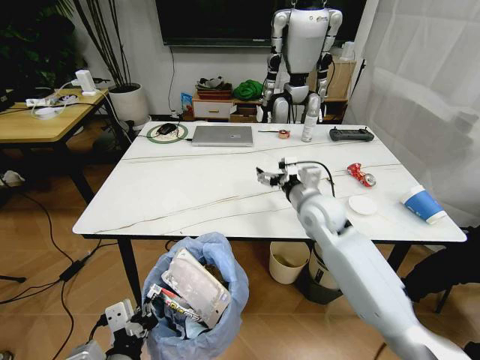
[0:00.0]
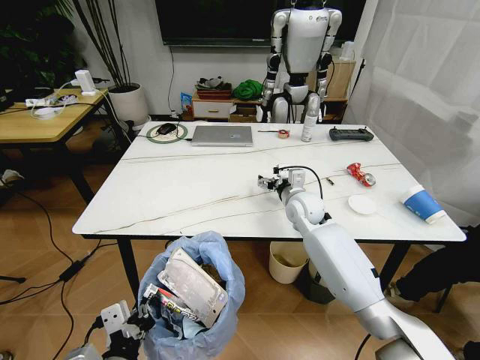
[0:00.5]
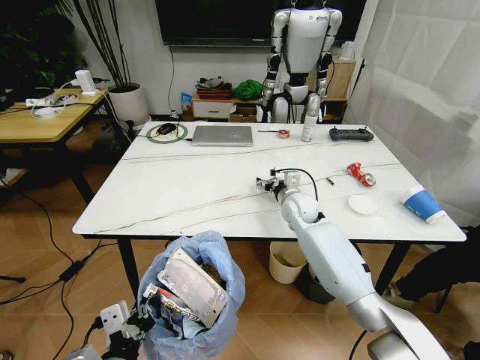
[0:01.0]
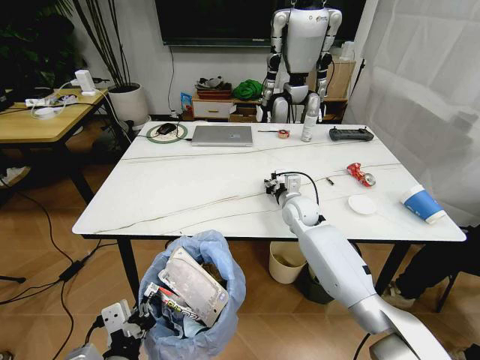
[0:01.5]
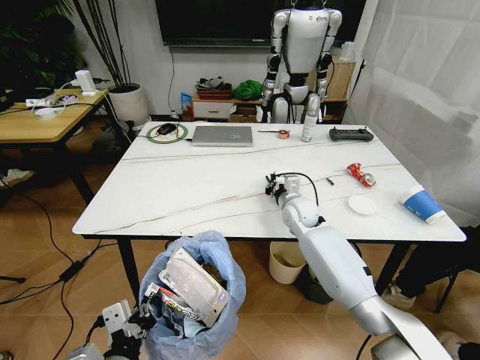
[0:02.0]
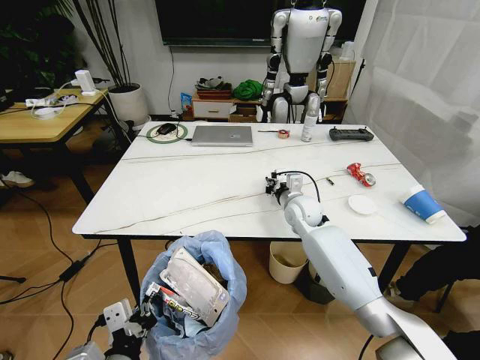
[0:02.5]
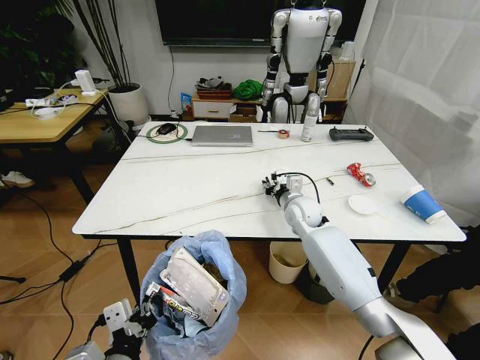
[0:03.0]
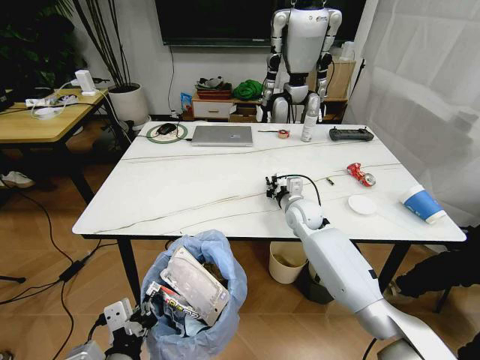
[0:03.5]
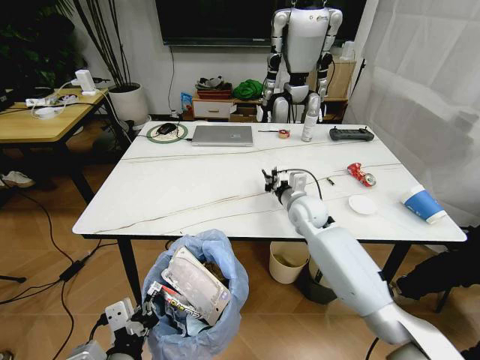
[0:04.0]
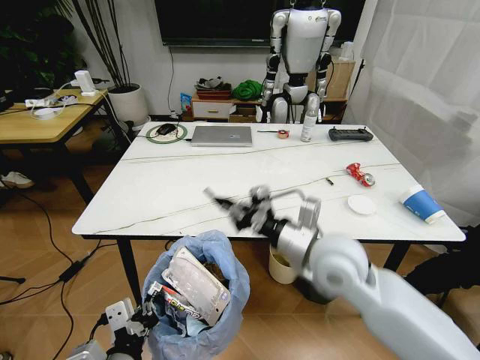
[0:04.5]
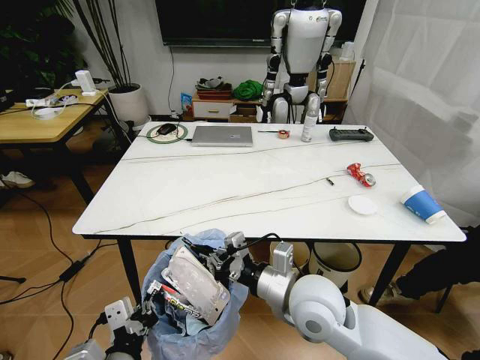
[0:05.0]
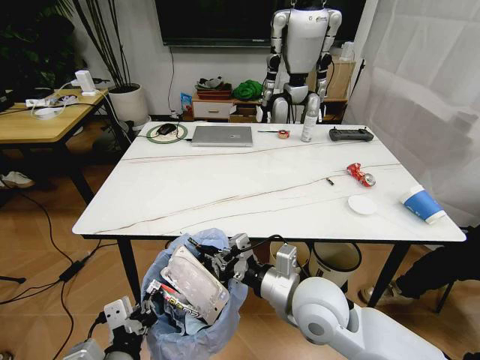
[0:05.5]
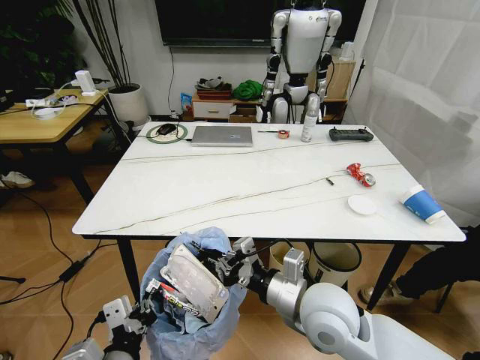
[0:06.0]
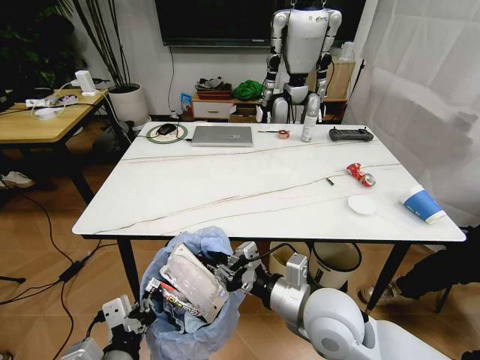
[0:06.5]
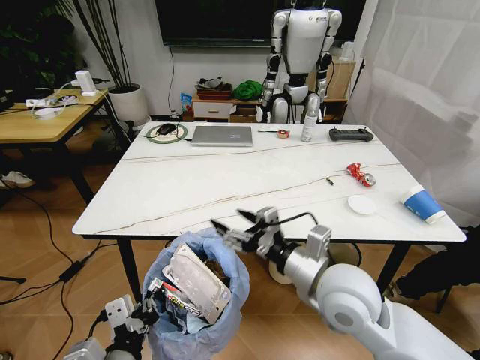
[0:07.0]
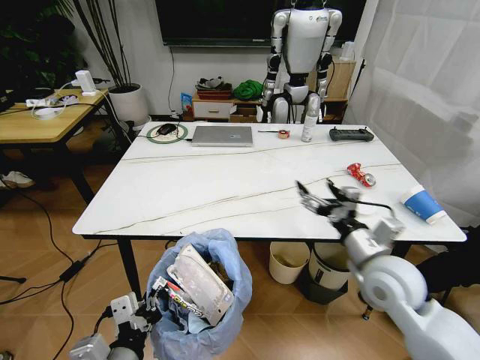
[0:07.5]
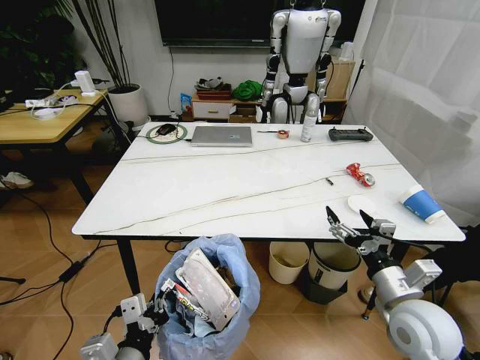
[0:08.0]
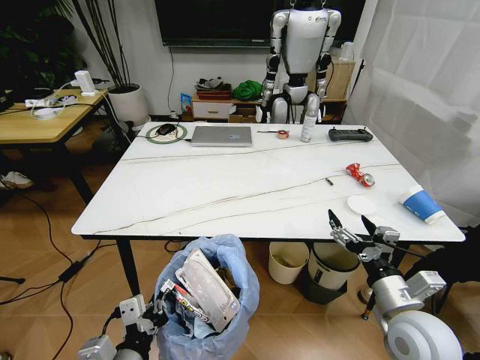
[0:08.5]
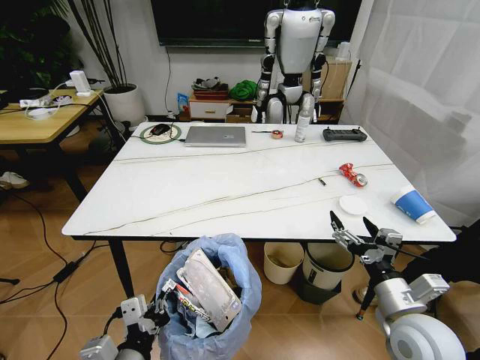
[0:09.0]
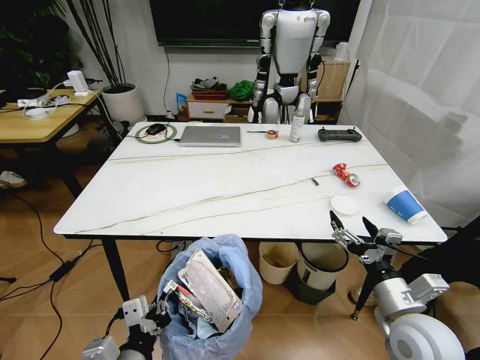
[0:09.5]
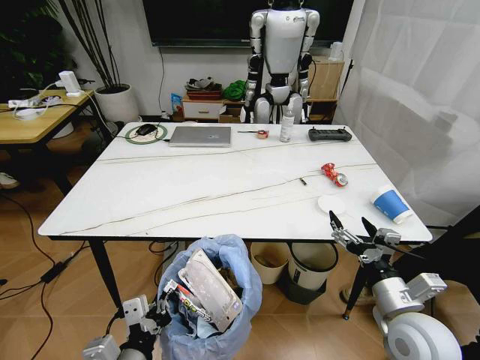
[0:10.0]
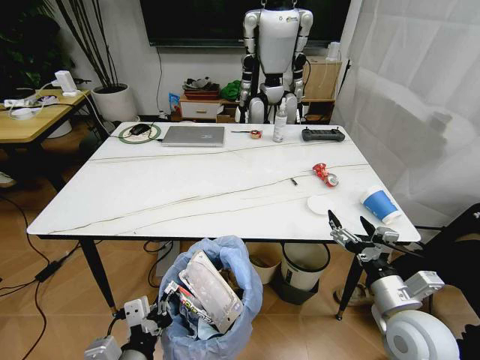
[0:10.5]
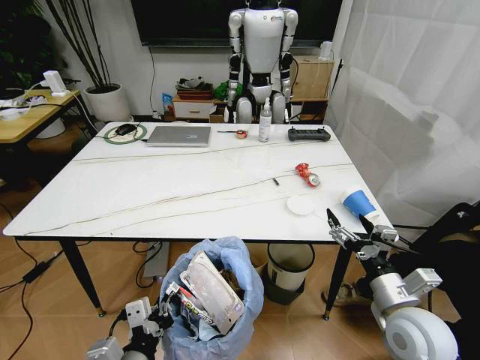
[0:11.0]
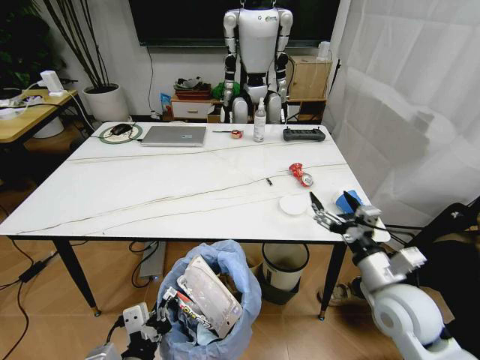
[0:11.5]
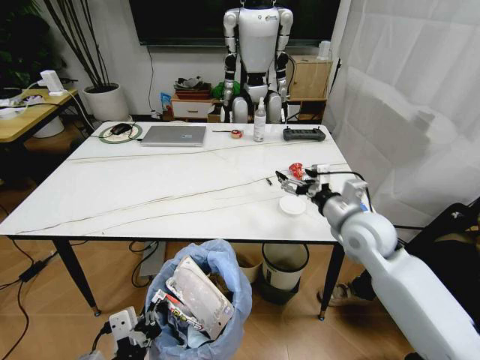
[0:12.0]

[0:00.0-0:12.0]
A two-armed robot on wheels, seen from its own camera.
Task of the whole recording: Pick up the trash bin and place the trash from the table into it.
0:00.0 to 0:02.0: The right gripper travels forward and downward by some 15 cm, and closes up.
0:02.0 to 0:04.0: The right gripper opens, then closes once more.
0:04.0 to 0:06.0: The right gripper shifts approximately 25 cm backward.
0:06.0 to 0:08.0: The right gripper goes approximately 15 cm to the right, and opens its fingers.
0:10.0 to 0:12.0: The right gripper is displaced forward by about 20 cm.

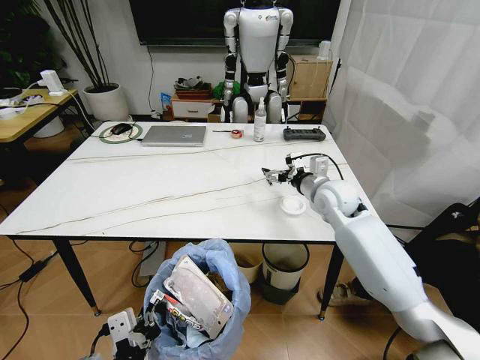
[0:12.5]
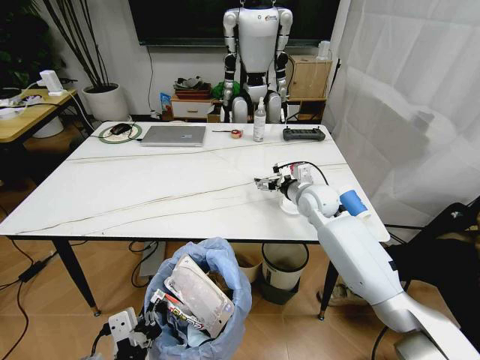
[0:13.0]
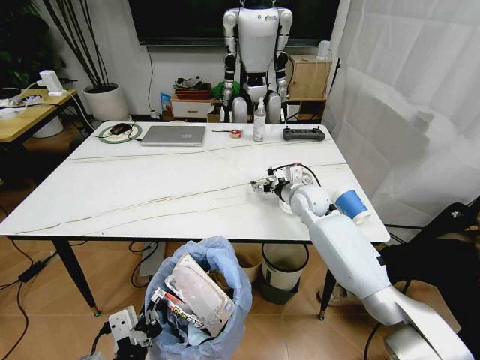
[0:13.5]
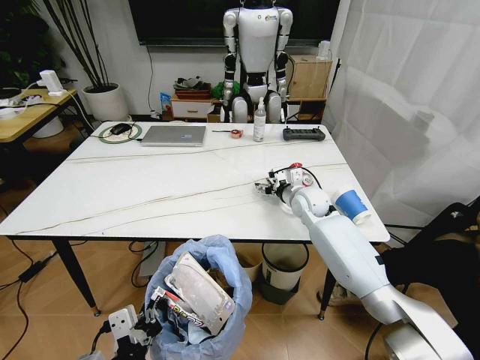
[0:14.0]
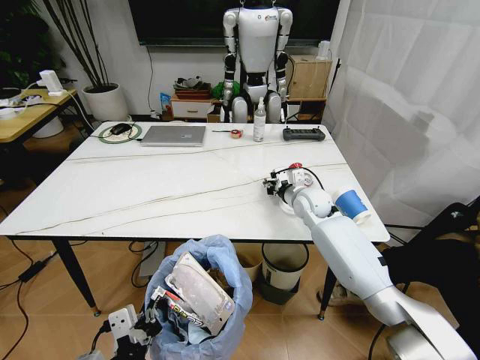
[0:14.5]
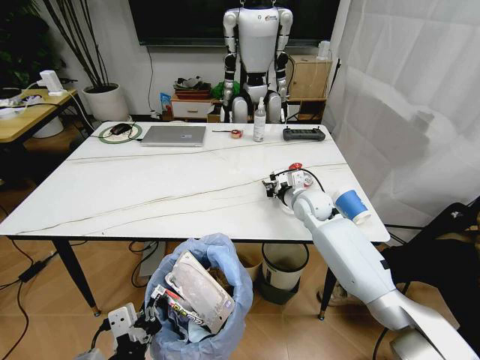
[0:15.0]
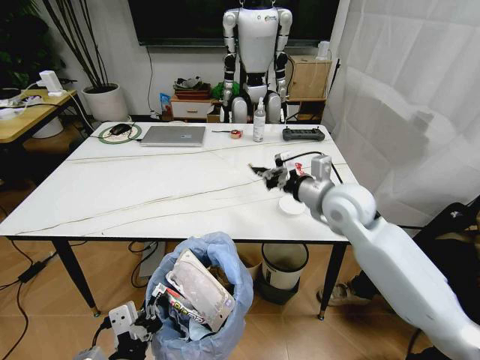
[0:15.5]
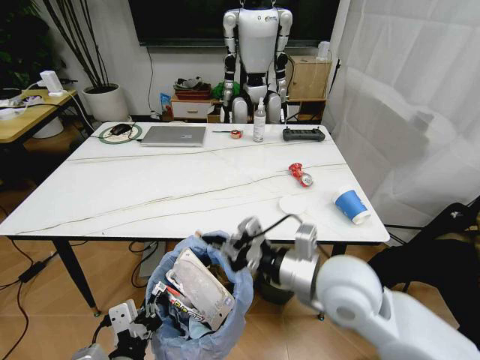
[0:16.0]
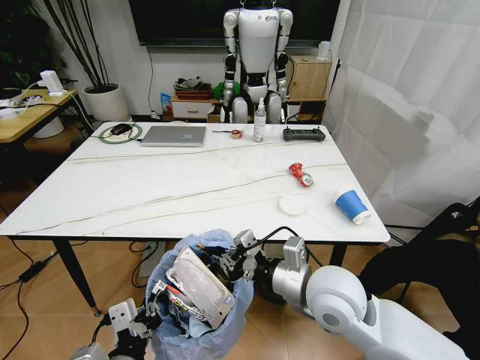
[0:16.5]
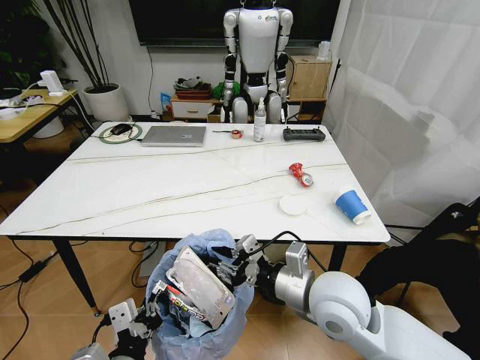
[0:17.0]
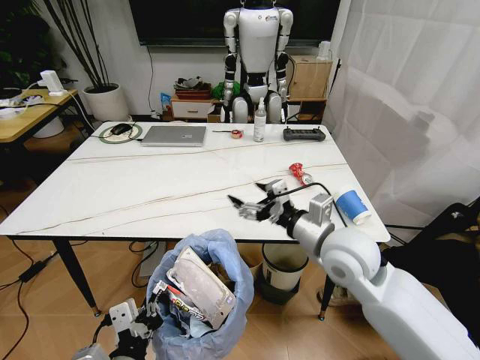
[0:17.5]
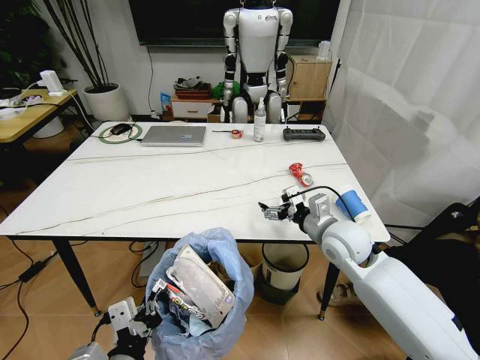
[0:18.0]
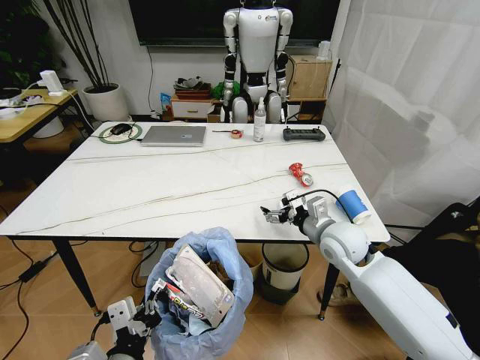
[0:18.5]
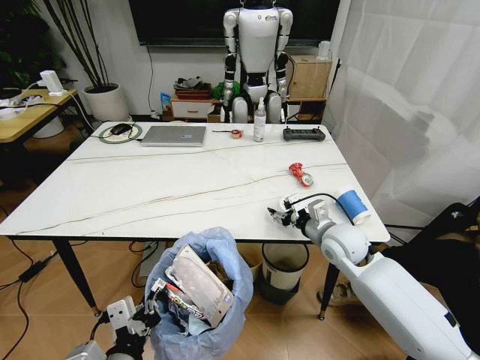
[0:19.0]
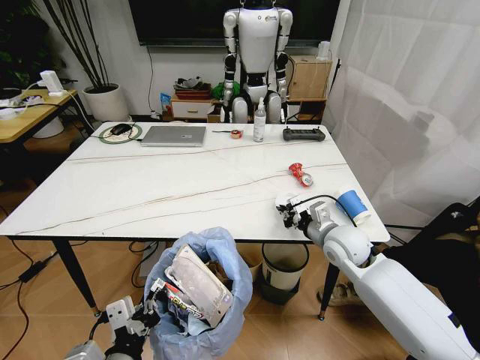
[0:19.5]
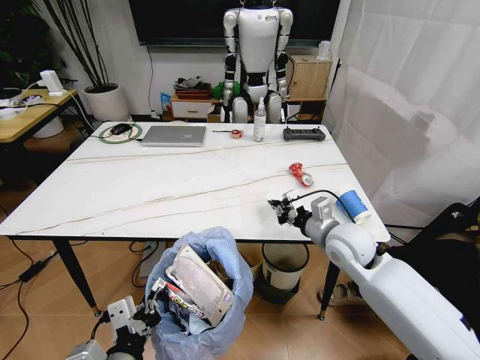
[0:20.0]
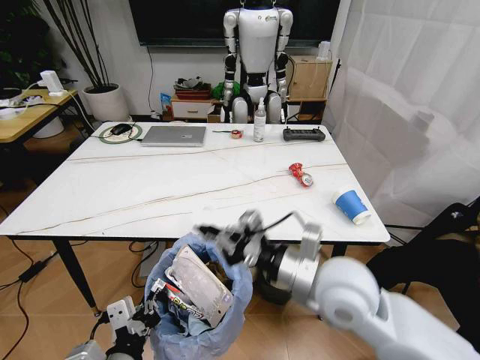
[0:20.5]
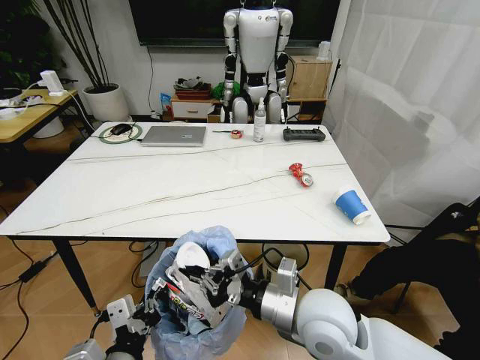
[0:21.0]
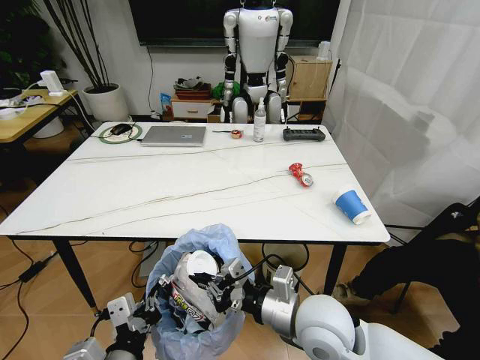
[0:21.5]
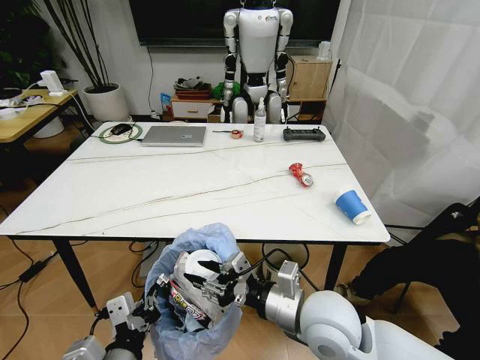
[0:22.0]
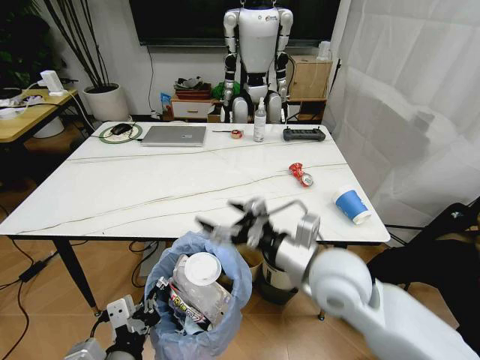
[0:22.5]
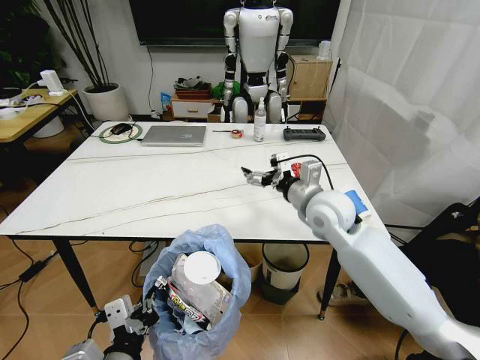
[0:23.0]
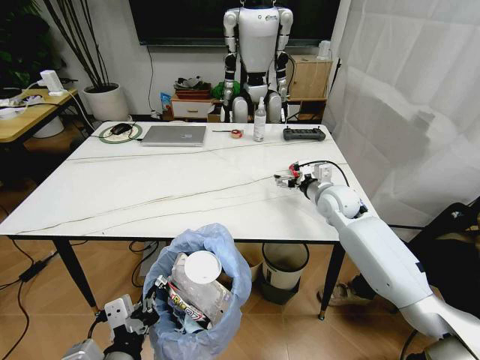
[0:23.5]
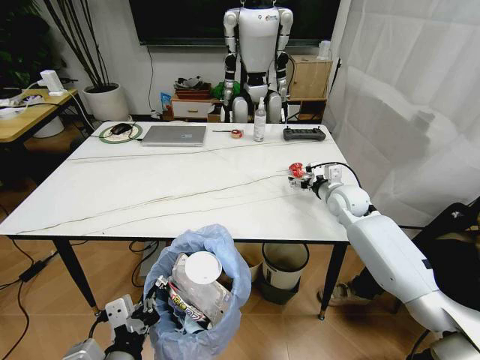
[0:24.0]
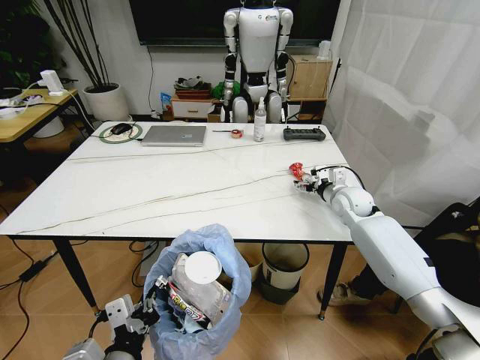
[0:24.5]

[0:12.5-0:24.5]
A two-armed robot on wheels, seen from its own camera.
Task of the whole recording: Pick up the trash bin and place the trash from the table into it.
0:12.5 to 0:14.5: The right gripper travels downward by about 5 cm, and closes.
0:14.5 to 0:16.5: The right gripper moves backward, some 25 cm.
0:16.5 to 0:18.5: The right gripper heads forward and to the right, covering roughly 15 cm, and opens up.
0:18.5 to 0:20.5: The right gripper is displaced backward, upward and to the left by some 15 cm, and closes.
0:20.5 to 0:22.5: The right gripper opens.
0:22.5 to 0:24.5: The right gripper is displaced forward and to the right by some 30 cm.

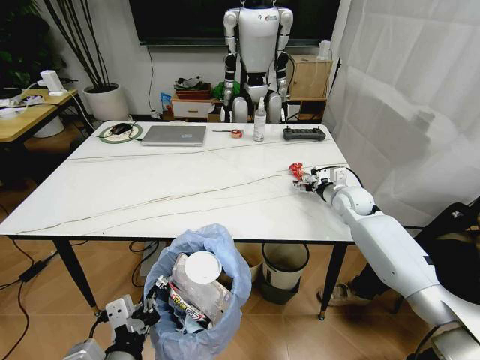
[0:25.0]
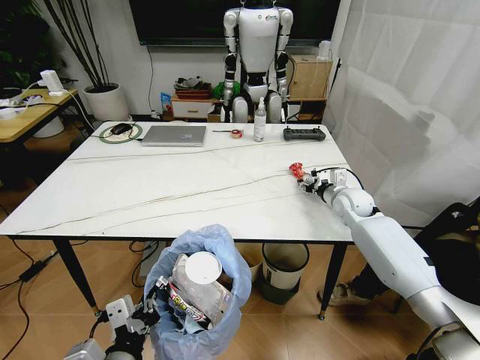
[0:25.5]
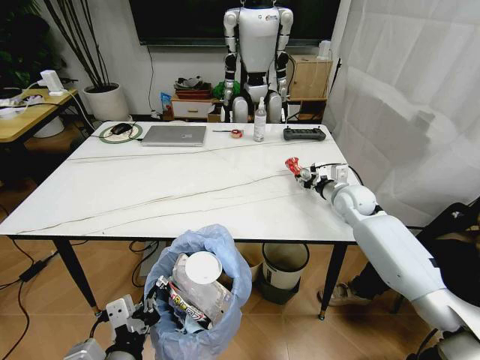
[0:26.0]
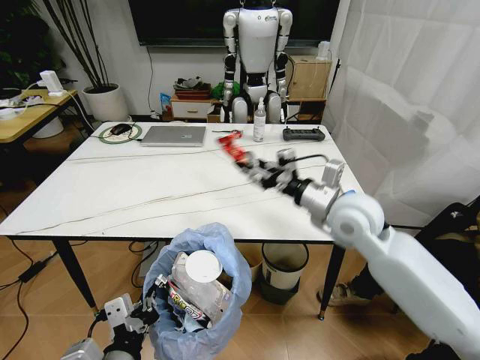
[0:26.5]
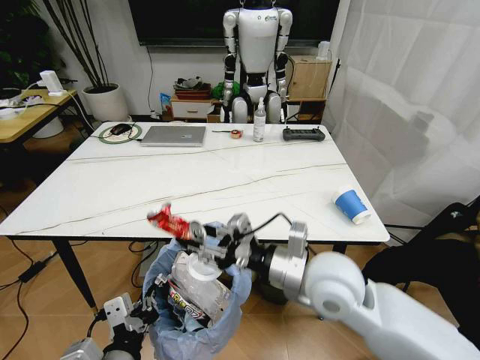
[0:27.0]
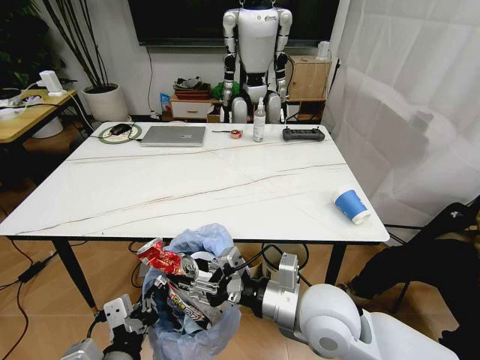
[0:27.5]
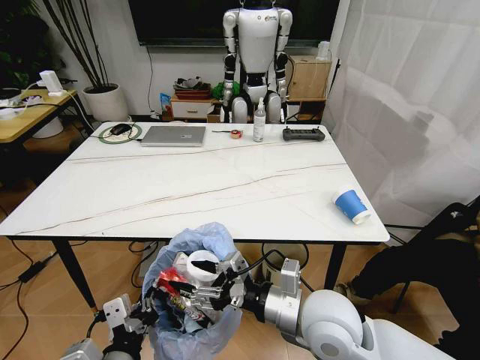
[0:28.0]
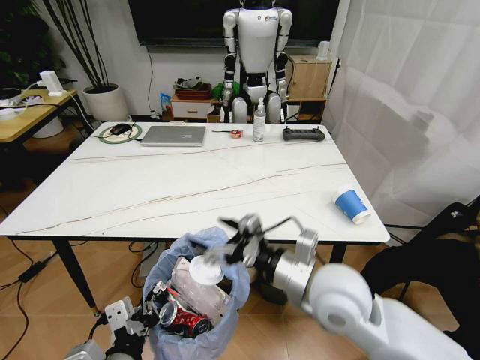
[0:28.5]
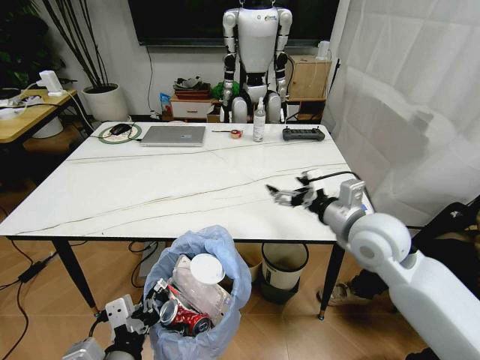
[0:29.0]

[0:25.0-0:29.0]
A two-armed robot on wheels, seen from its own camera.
Task of the whole recording: Pick up the trash bin and place the trash from the table into it.
0:25.0 to 0:27.0: The right gripper moves backward and to the left, approximately 30 cm, and closes its fingers.
0:27.0 to 0:29.0: The right gripper travels to the right and forward by roughly 15 cm, and opens its fingers.
